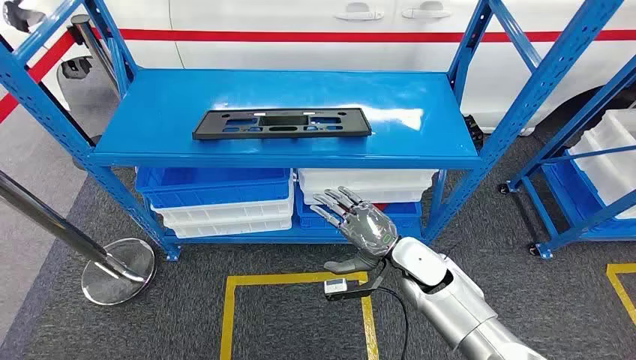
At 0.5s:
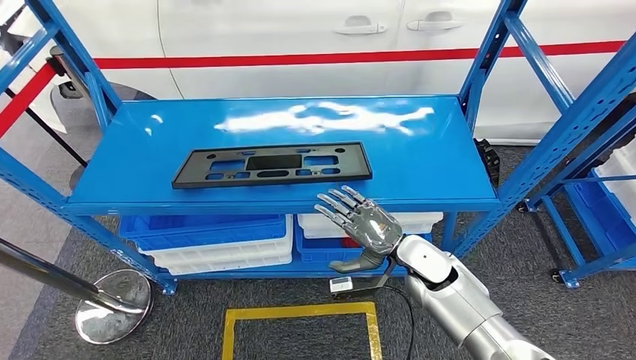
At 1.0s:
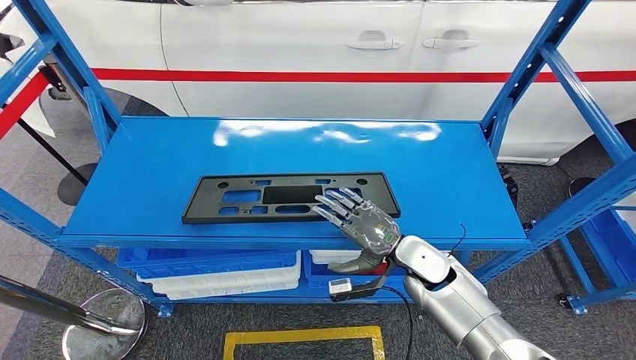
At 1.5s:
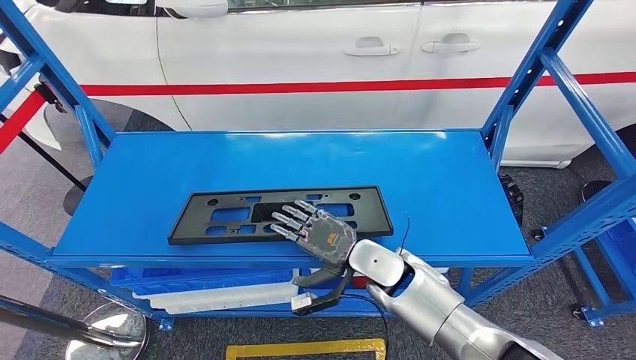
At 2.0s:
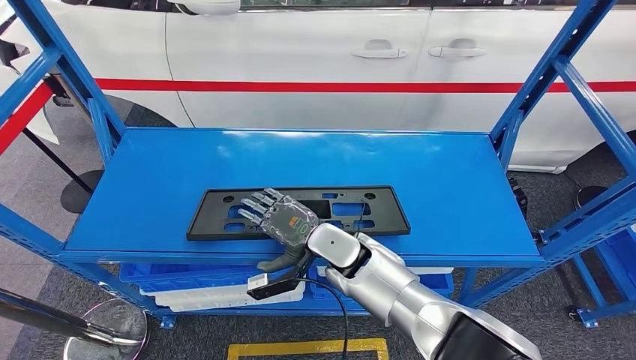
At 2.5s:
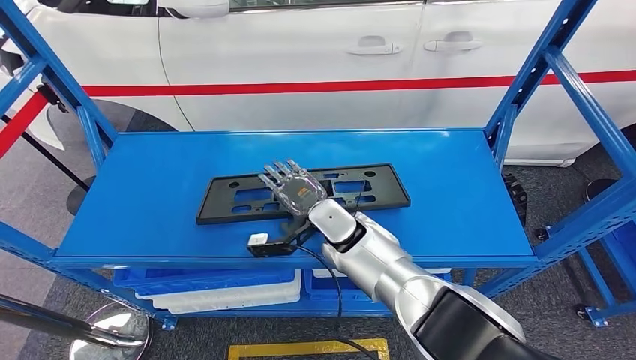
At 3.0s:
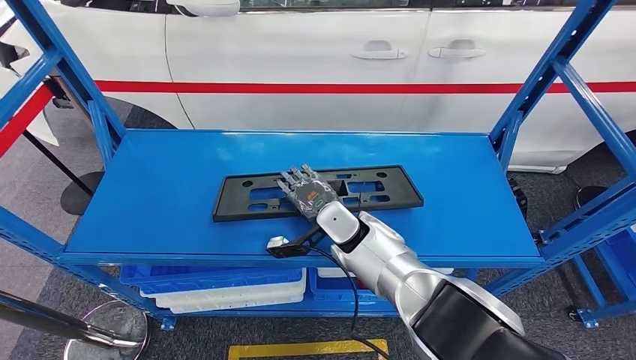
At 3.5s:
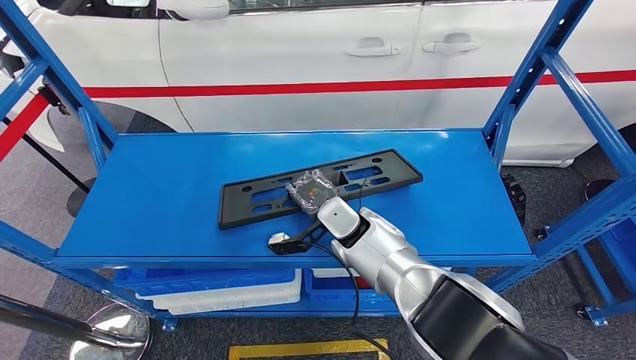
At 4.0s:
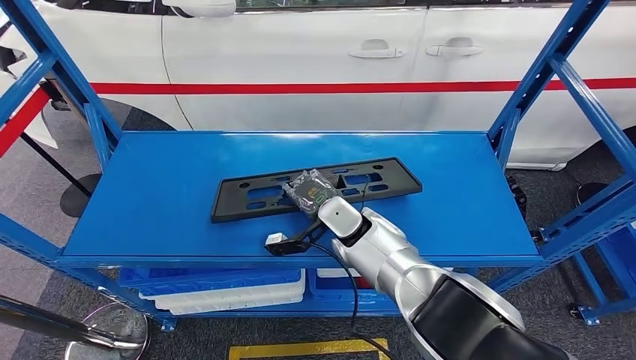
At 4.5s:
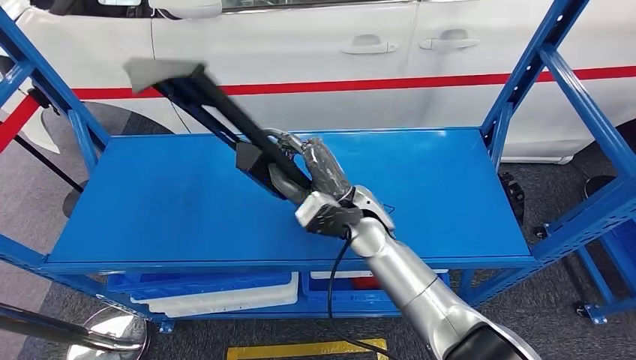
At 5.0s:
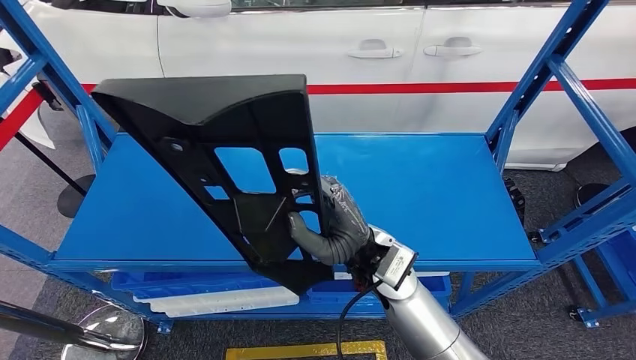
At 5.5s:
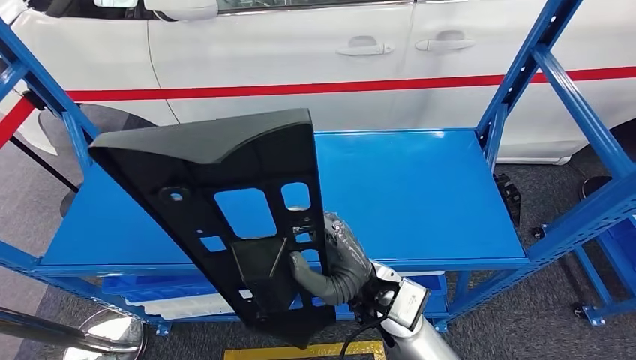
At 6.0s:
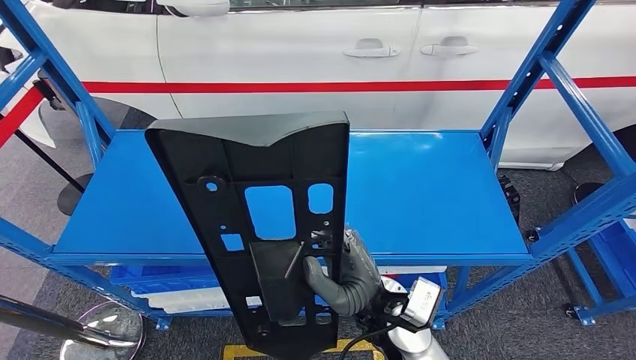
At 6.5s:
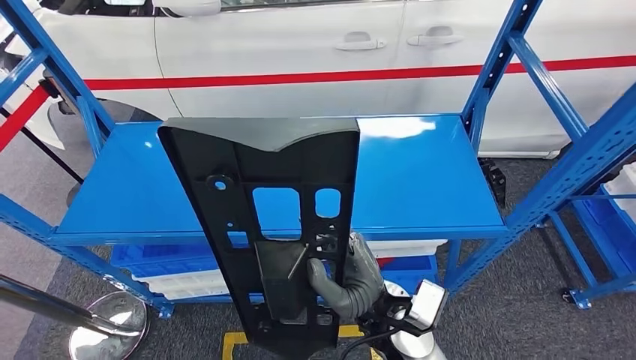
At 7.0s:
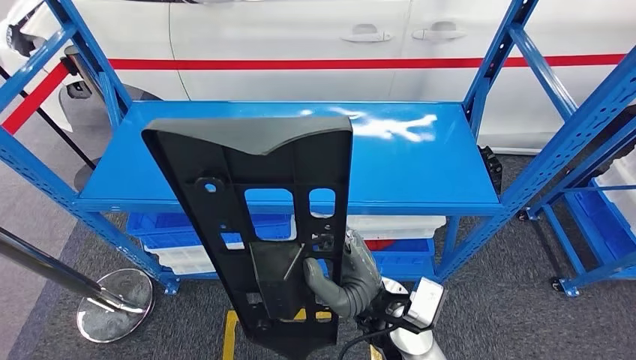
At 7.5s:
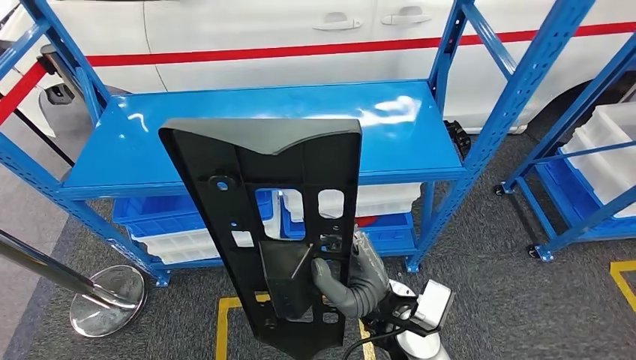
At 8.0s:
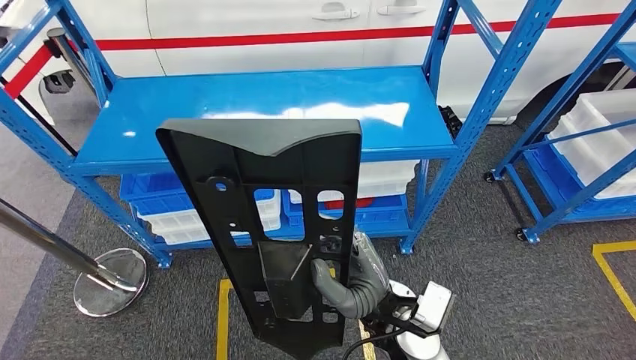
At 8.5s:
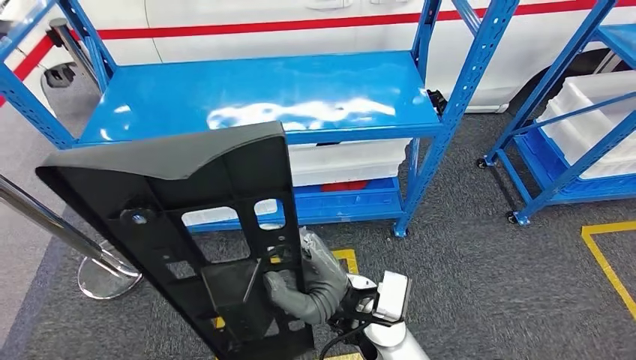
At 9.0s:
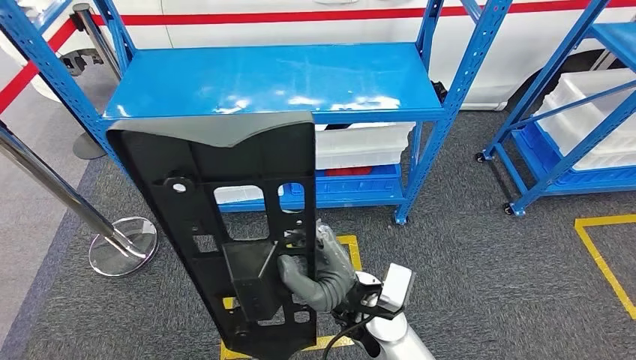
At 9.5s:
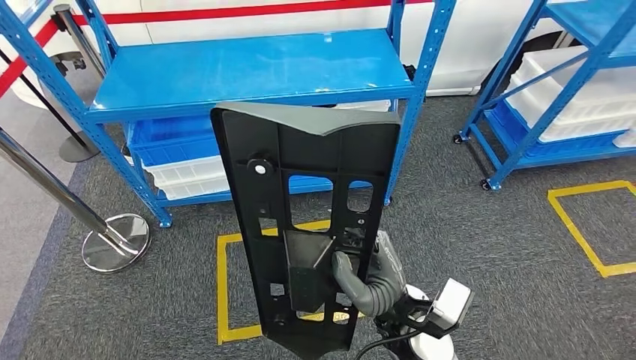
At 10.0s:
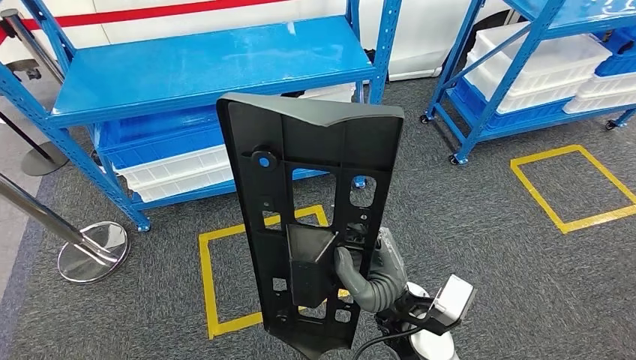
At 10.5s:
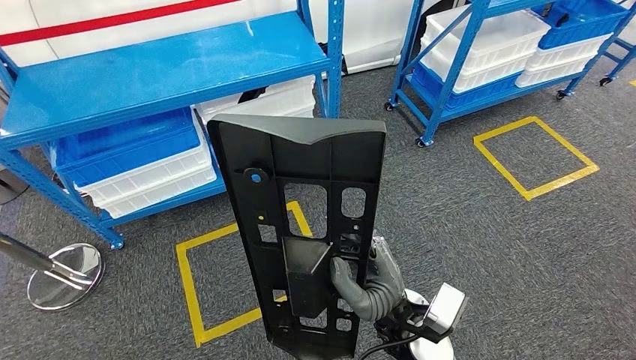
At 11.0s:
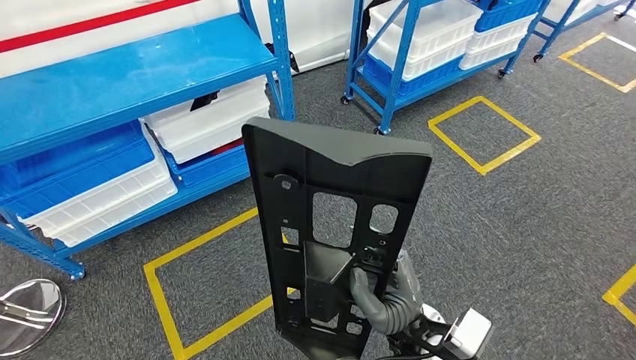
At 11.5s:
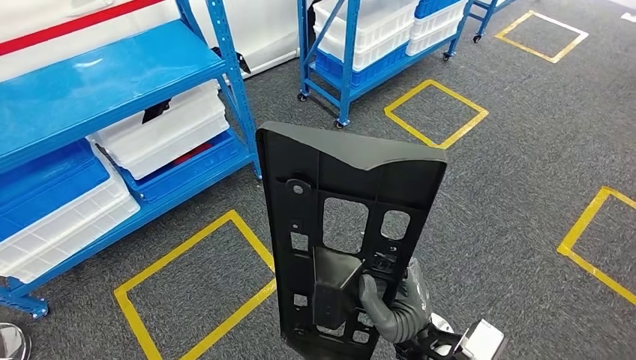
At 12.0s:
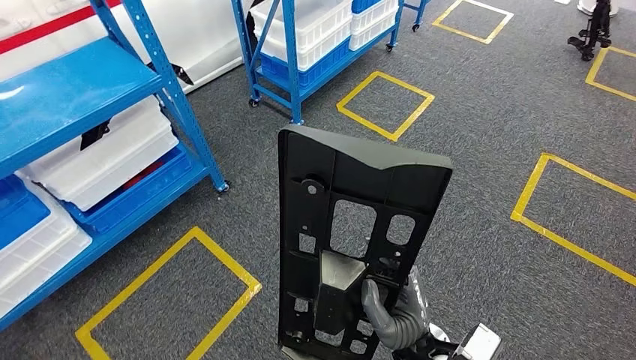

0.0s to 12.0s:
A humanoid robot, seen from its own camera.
Step, 0.0s to 4.0s: Pick up the large material from the shelf.

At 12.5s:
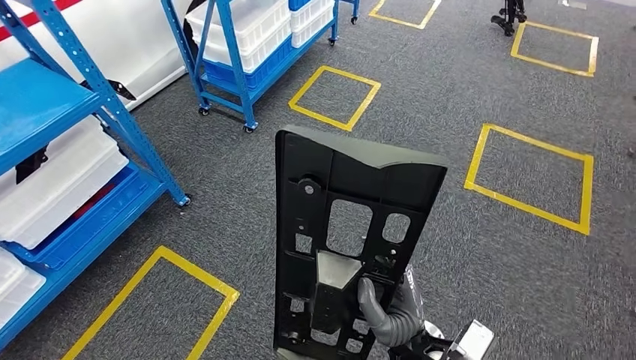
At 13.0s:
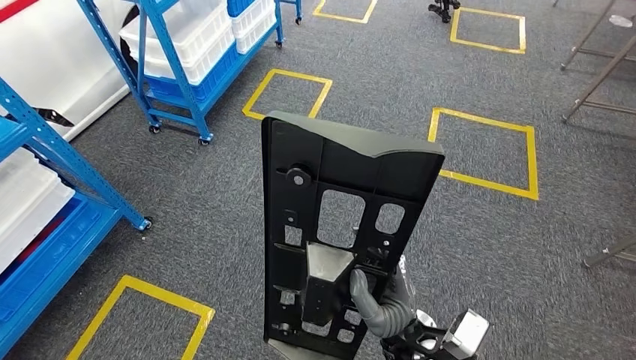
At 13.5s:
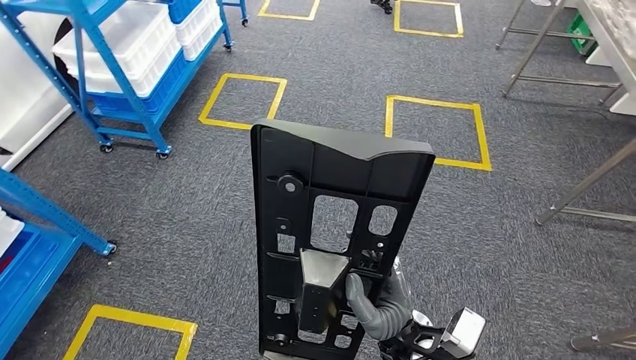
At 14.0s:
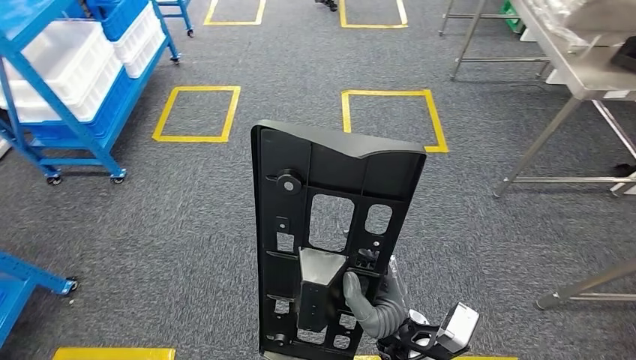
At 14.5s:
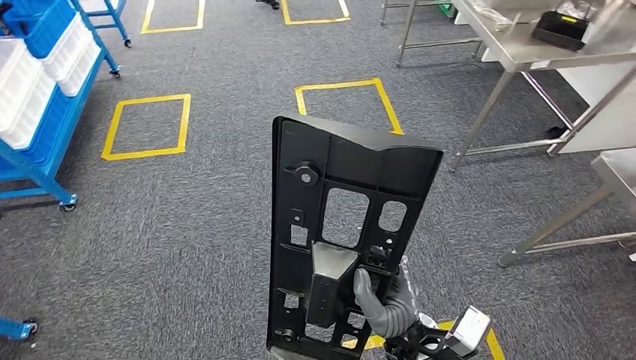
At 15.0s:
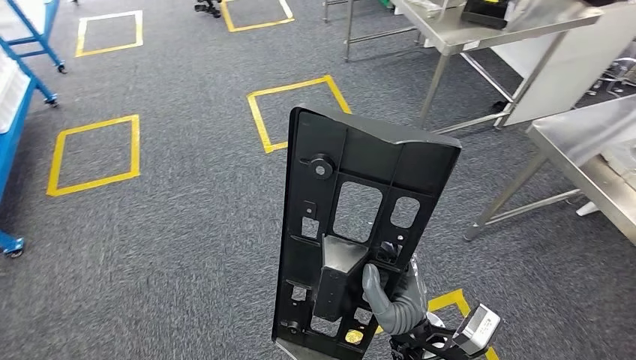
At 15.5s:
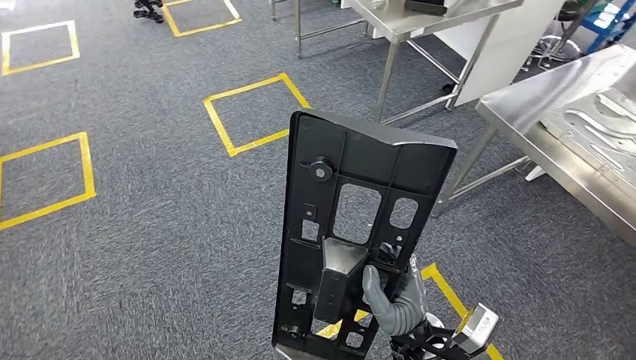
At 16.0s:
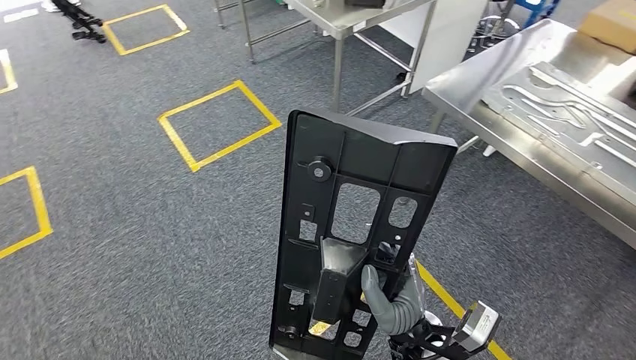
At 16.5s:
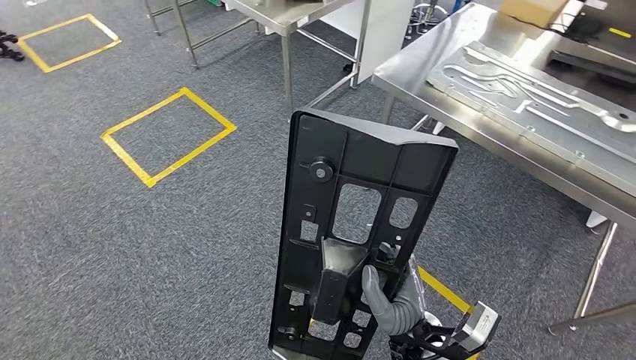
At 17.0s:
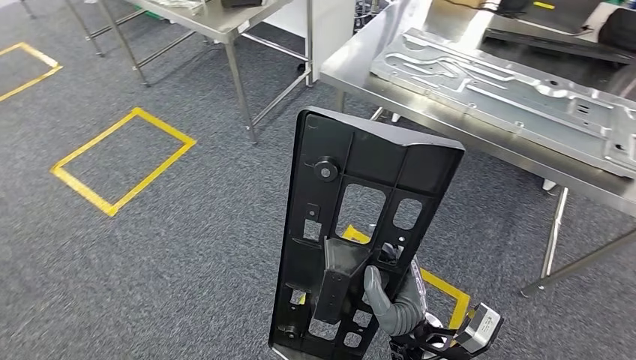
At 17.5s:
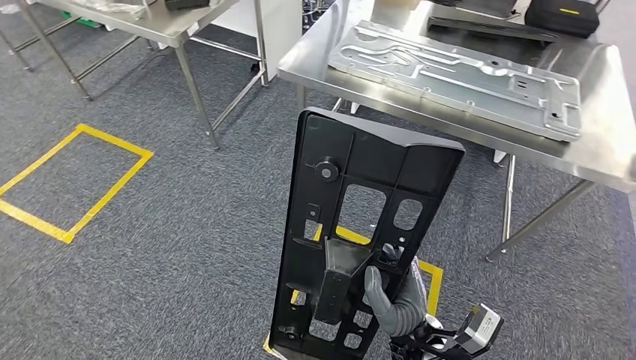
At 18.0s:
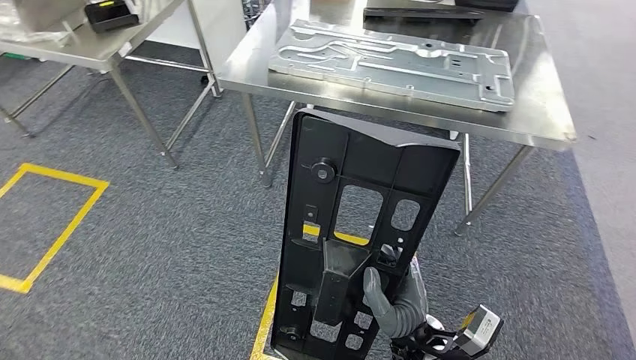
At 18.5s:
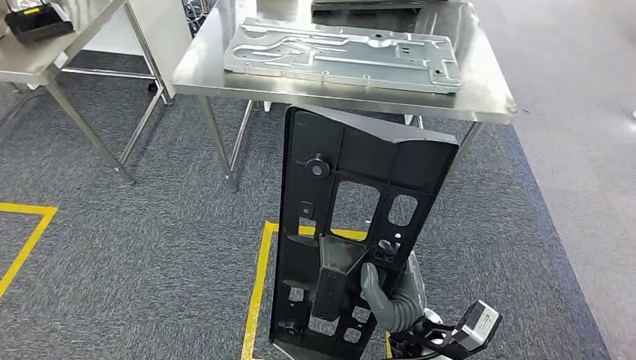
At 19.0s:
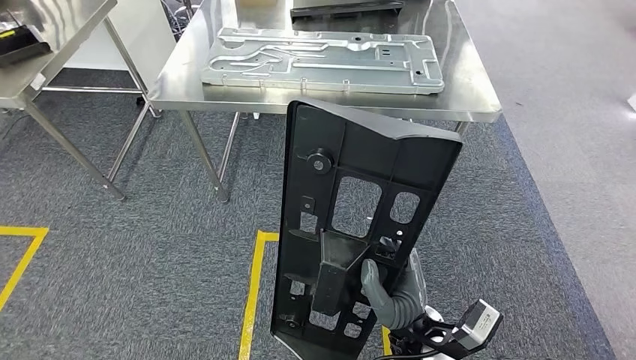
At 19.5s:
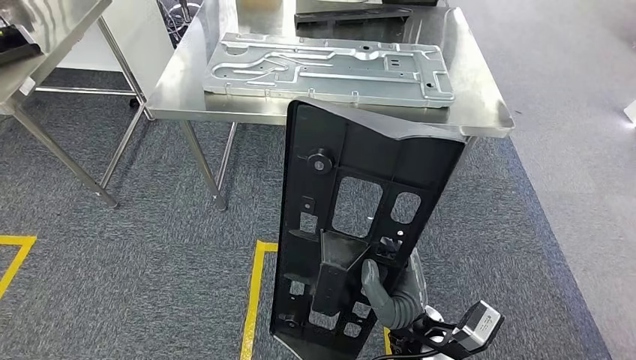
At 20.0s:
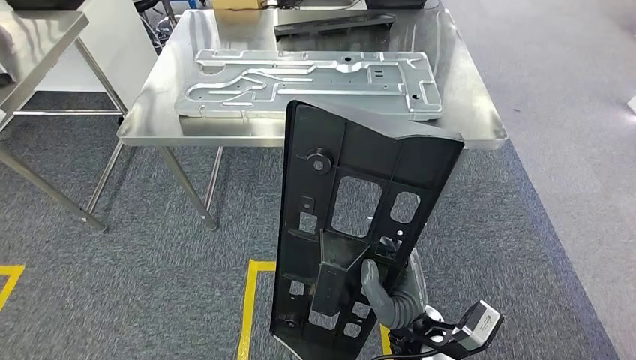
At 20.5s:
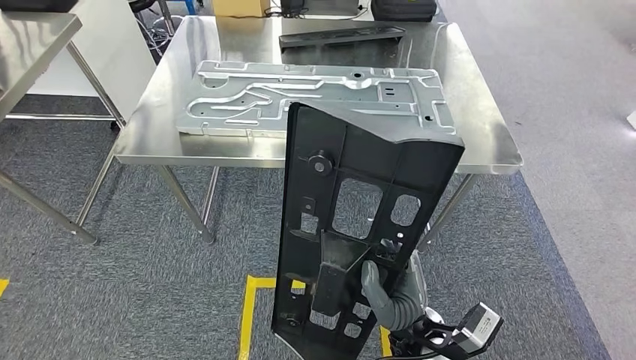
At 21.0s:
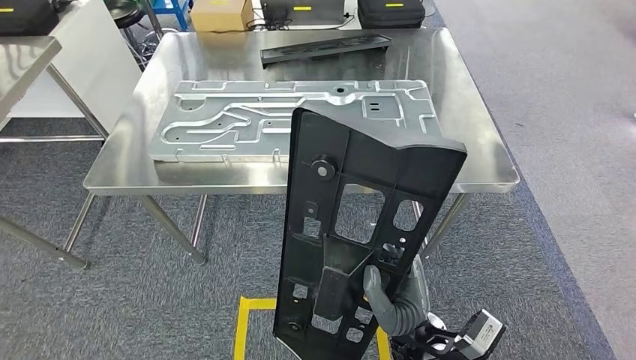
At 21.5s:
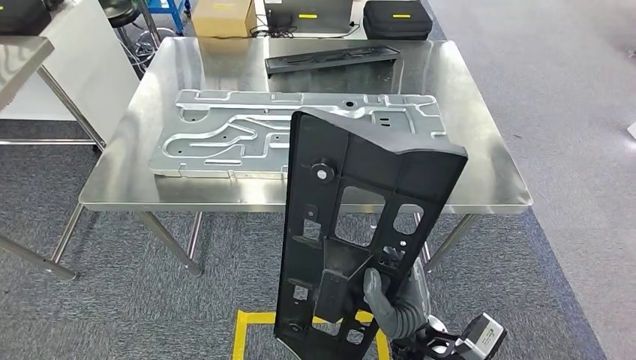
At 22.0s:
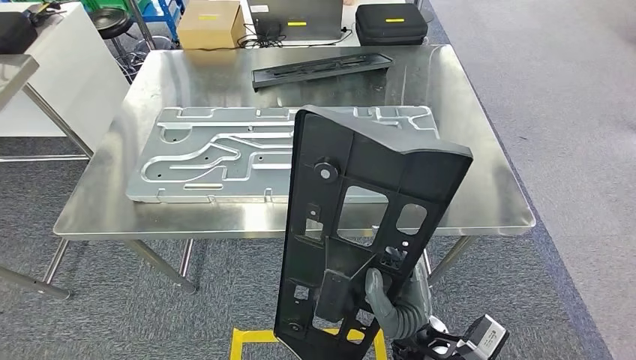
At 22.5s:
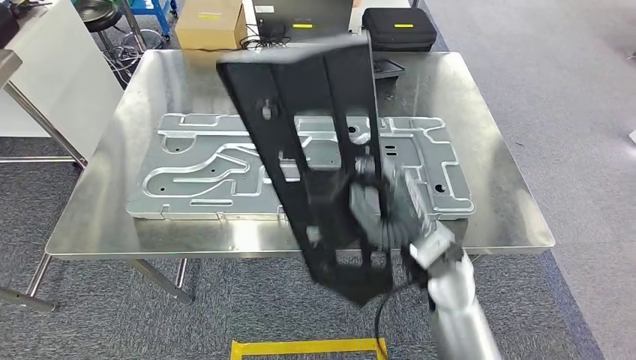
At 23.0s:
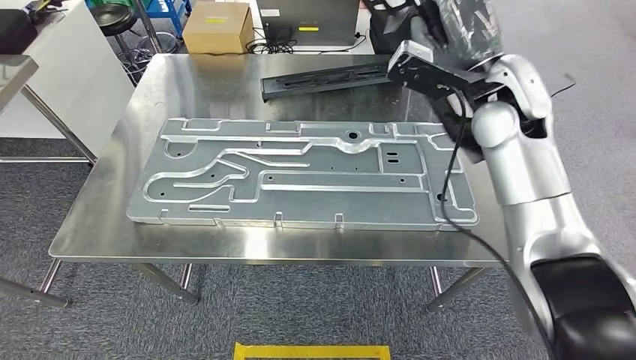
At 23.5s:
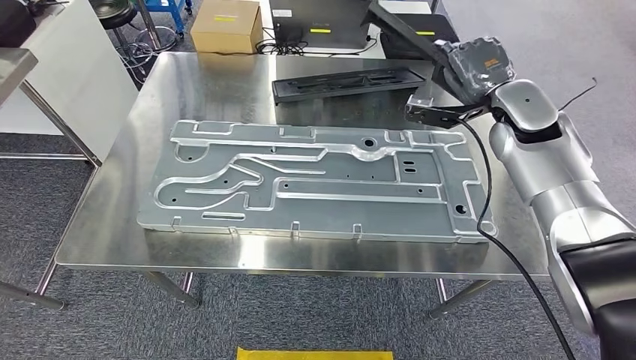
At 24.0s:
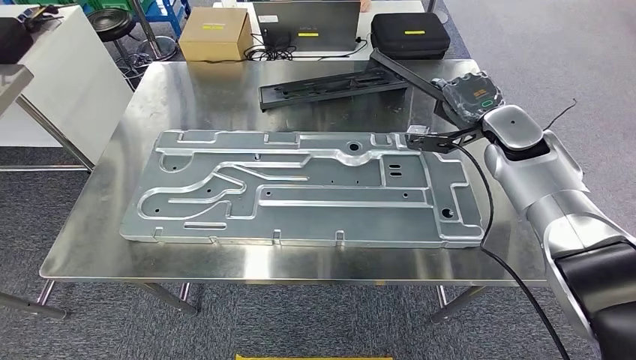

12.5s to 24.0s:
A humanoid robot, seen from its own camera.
Step, 12.5s to 22.0s: Move the large material to the workbench.
